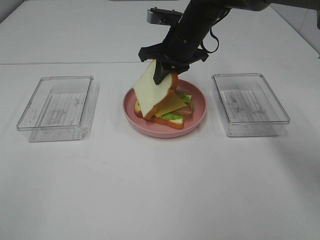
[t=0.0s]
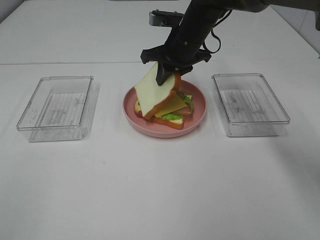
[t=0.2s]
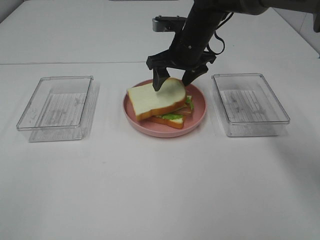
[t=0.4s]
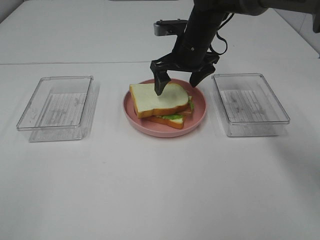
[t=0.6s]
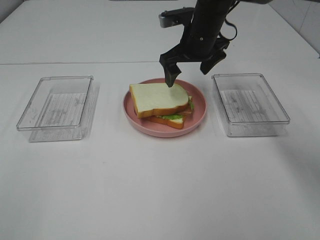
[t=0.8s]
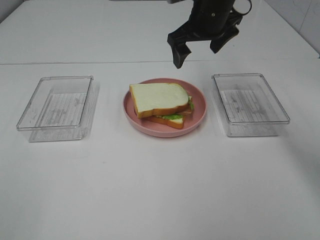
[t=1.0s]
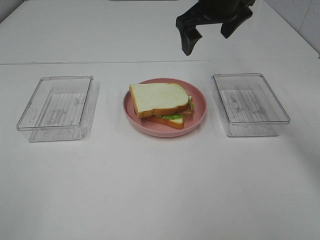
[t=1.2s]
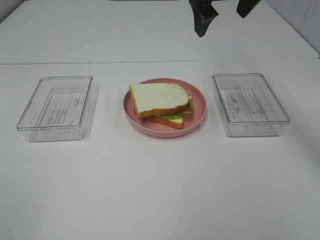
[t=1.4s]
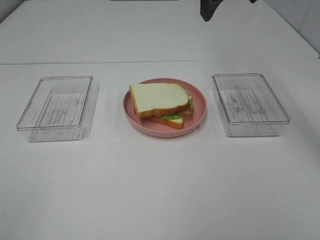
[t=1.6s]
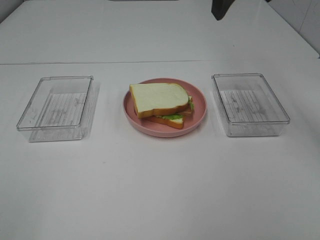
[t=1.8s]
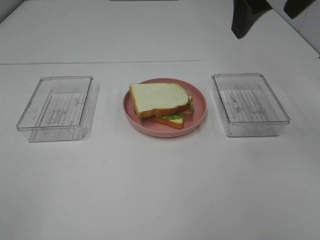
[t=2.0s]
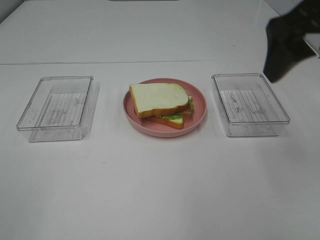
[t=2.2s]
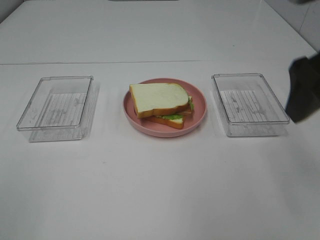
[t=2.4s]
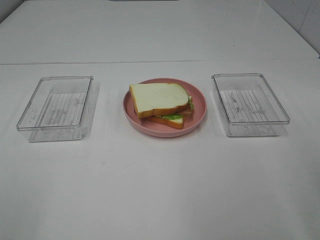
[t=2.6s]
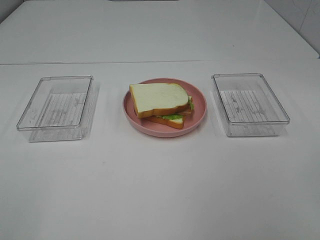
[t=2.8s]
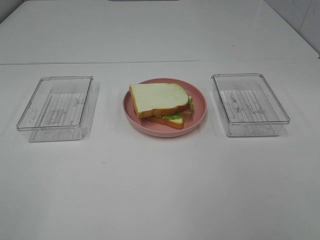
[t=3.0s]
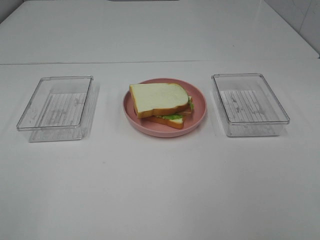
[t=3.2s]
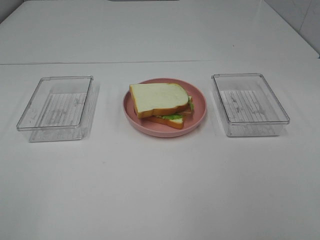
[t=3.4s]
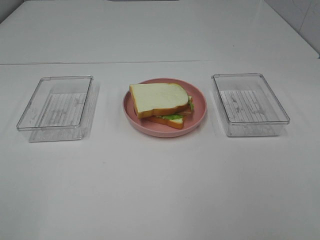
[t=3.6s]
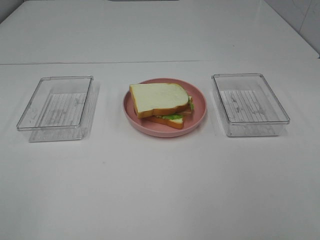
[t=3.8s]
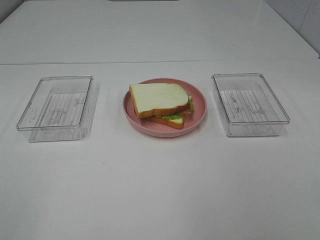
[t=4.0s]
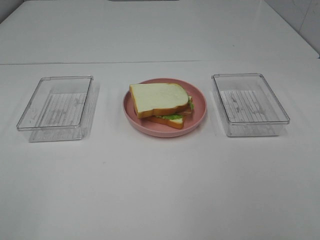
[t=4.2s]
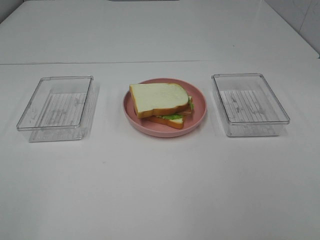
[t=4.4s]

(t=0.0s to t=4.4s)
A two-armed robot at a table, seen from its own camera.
Task of the whole recording: Make sandwiches.
t=0.0s - t=1.4s: The right gripper moves upward, about 15 cm, and opens its fingers.
t=1.4s - t=3.0s: The right gripper travels backward and to the right by approximately 40 cm.
